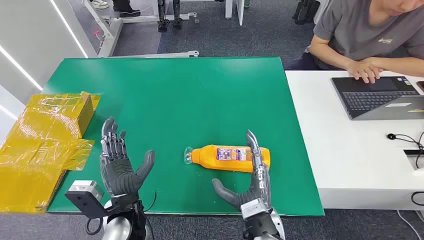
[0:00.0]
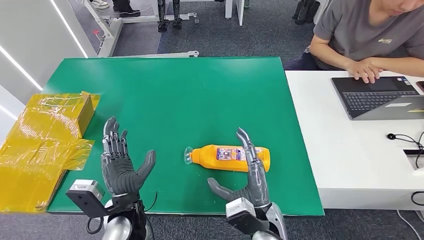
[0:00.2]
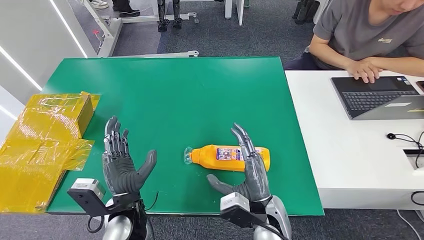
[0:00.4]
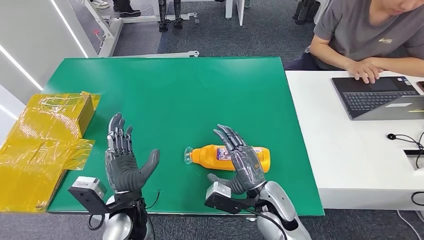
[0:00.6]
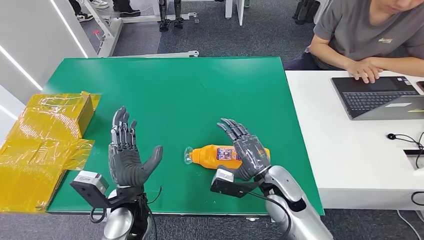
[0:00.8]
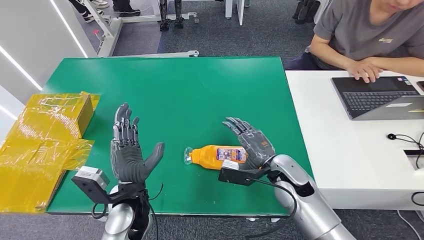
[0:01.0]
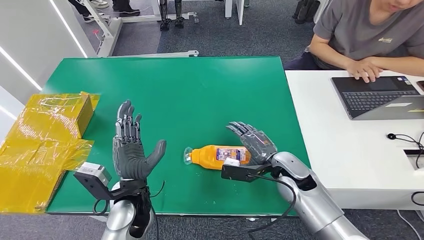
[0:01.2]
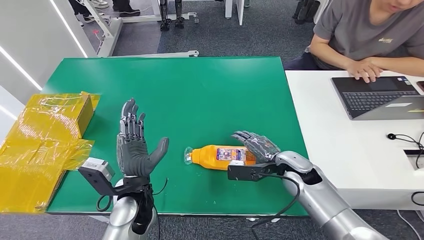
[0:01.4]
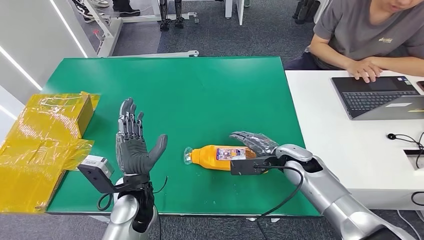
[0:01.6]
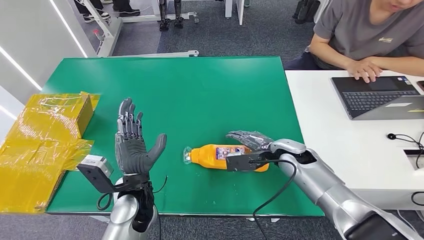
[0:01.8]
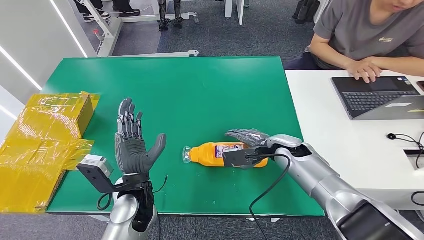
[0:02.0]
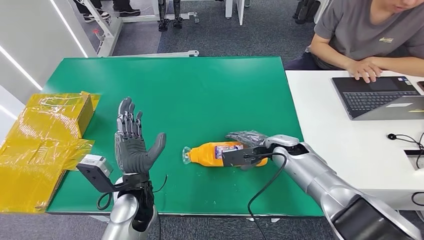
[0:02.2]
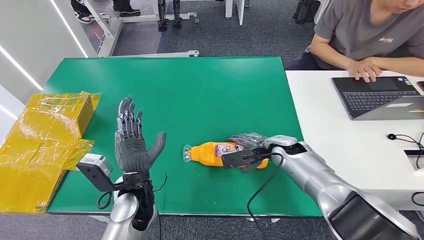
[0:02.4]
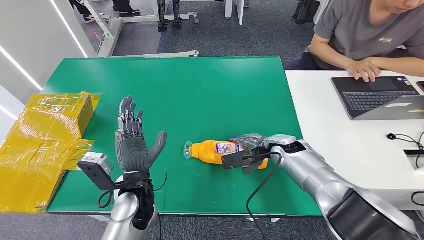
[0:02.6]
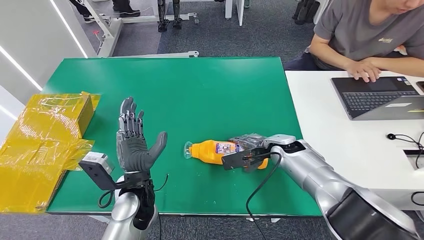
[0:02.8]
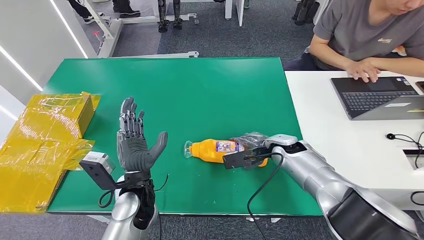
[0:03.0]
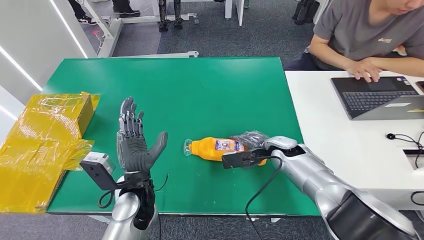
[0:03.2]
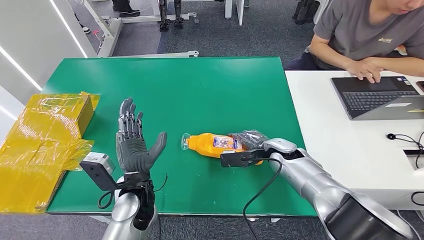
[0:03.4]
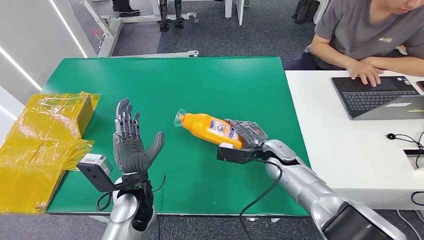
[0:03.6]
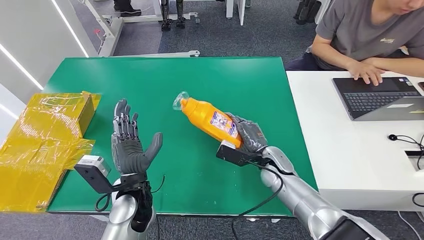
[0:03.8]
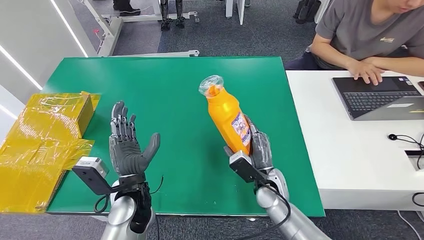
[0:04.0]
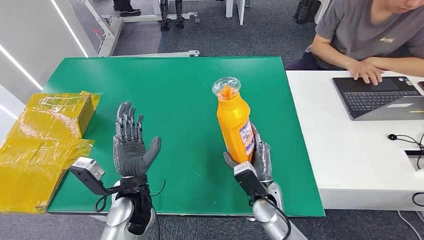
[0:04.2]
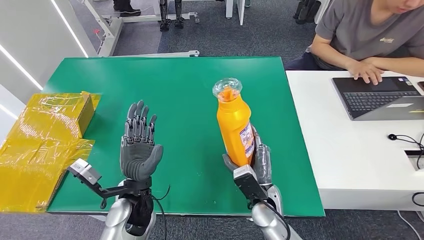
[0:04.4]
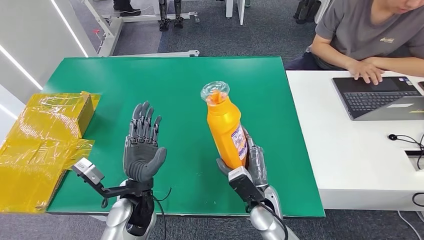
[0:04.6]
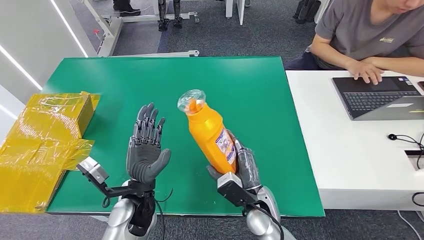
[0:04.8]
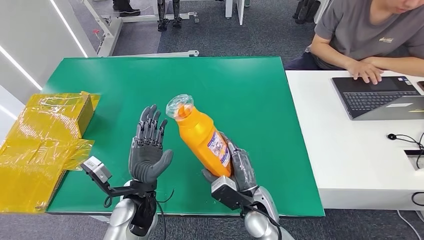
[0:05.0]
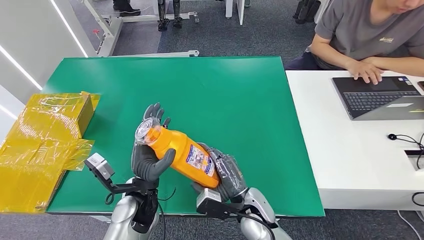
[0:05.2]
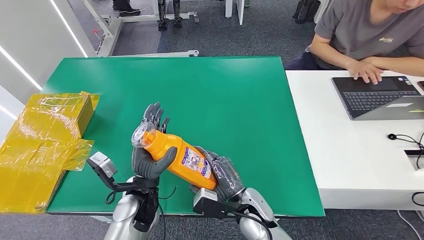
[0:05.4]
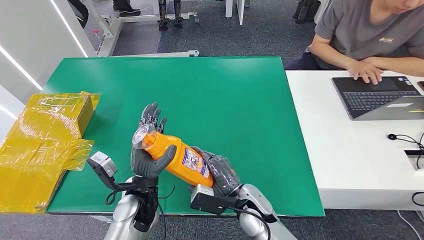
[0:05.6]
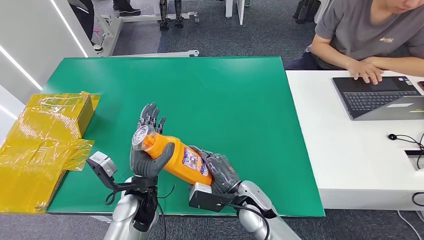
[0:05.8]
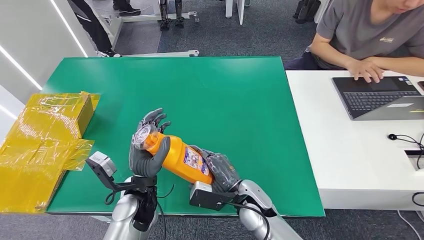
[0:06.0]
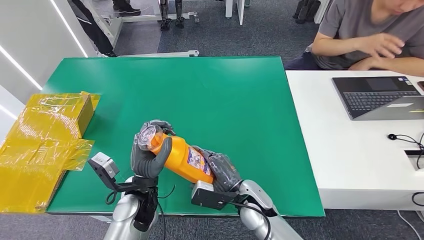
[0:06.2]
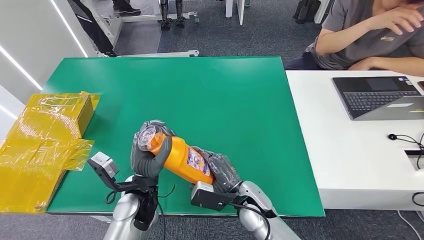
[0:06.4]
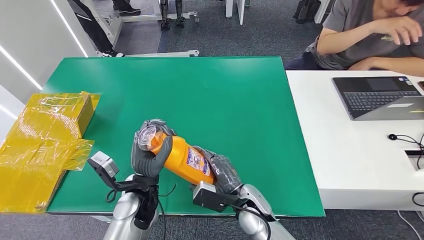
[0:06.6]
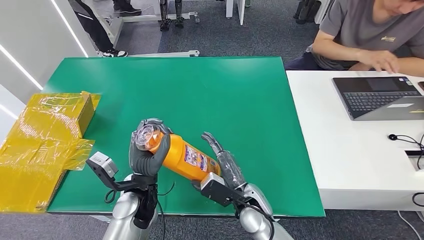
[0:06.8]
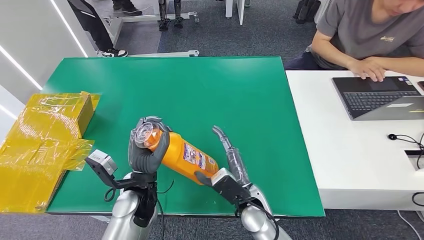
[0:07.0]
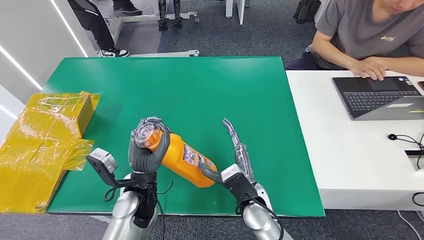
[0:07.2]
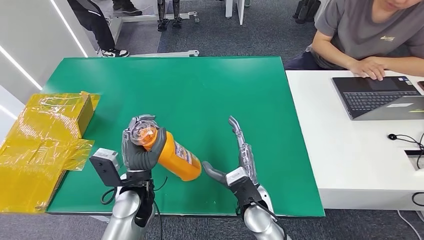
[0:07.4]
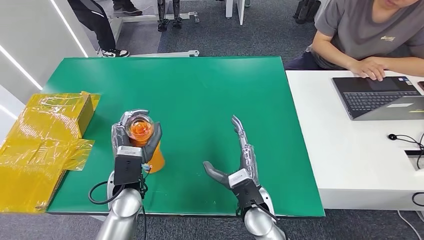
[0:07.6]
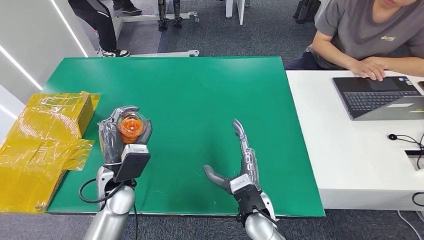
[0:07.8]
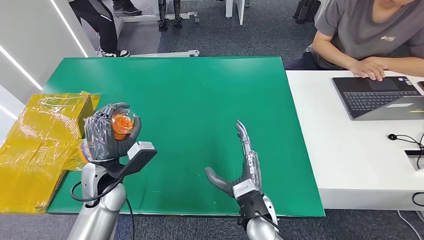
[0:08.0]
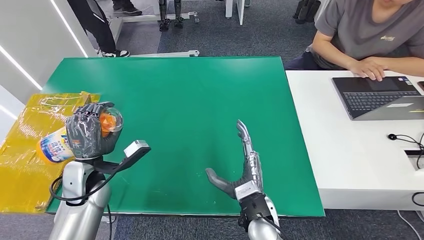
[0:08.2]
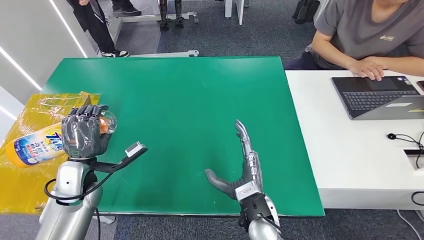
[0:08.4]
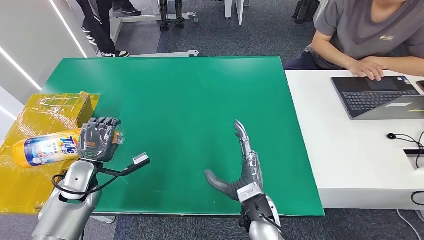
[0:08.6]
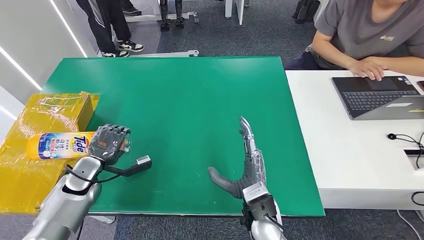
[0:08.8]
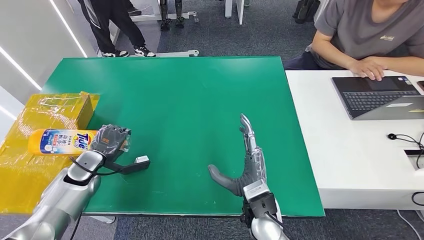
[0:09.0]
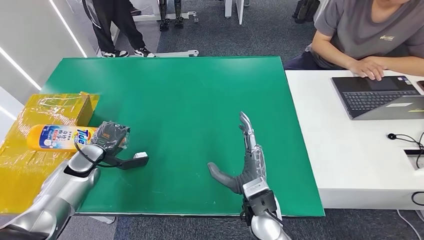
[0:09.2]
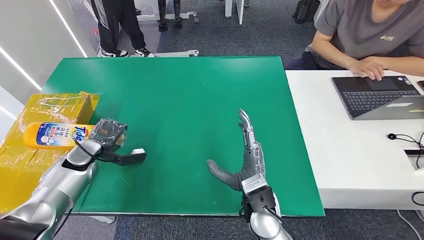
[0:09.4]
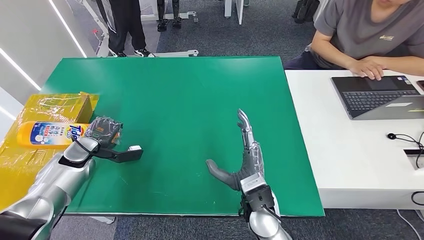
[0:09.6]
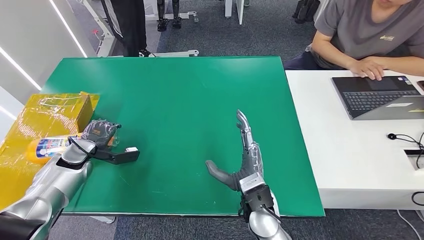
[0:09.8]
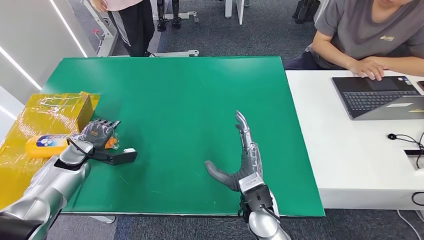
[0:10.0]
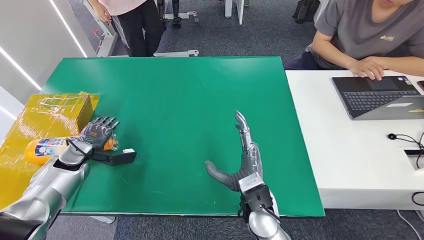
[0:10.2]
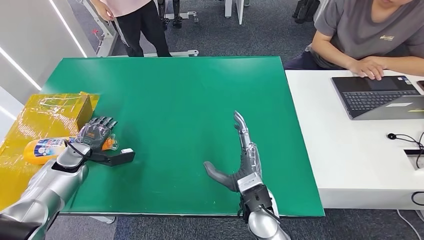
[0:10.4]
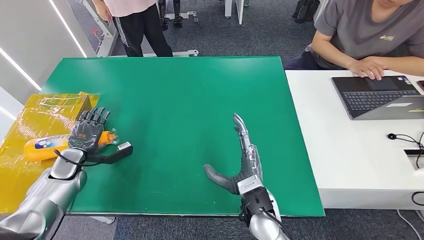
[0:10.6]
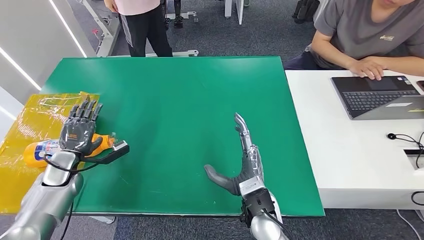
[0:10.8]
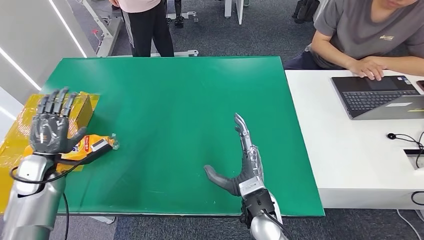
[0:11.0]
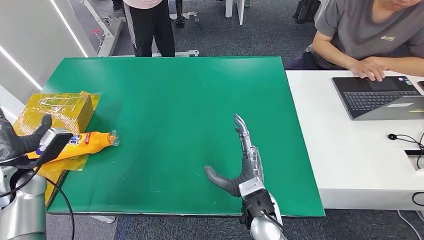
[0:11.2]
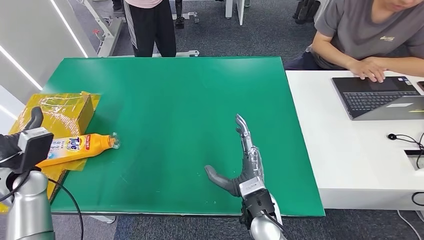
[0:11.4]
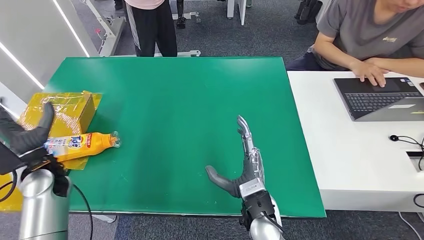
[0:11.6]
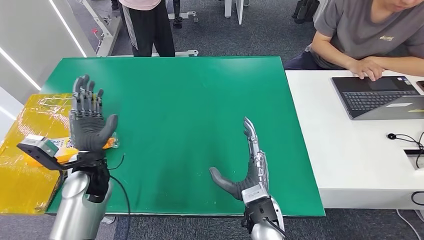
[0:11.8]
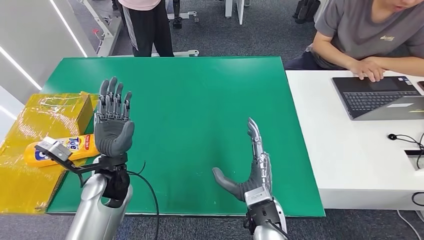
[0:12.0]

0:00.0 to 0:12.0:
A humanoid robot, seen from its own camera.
Step, 0:00.0 to 0:04.2: Pick up the bottle from the table.
Step, 0:04.6 to 0:12.0: Turn the bottle to the front side.
0:03.0 to 0:04.4: The right hand goes about 15 cm backward and to the left.
0:07.6 to 0:09.0: The left hand goes about 20 cm to the left and forward.
0:09.0 to 0:10.4: The left hand ends up roughly 5 cm from where it was.
0:10.4 to 0:12.0: The left hand goes approximately 20 cm to the right and backward.

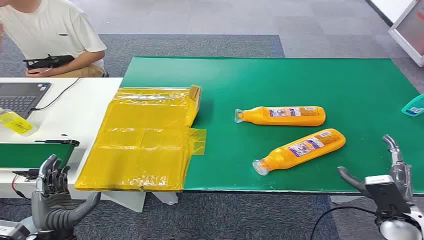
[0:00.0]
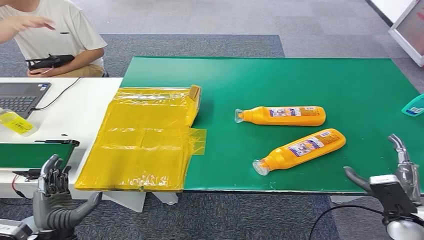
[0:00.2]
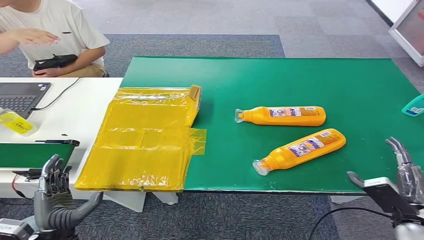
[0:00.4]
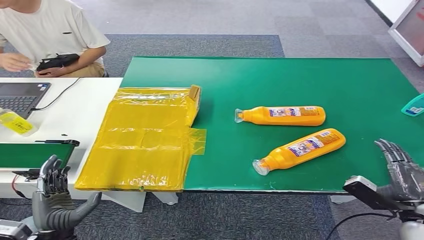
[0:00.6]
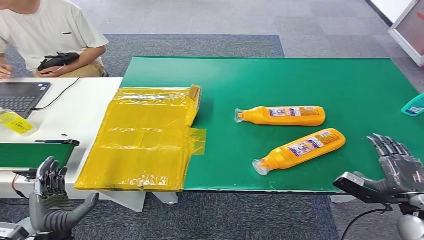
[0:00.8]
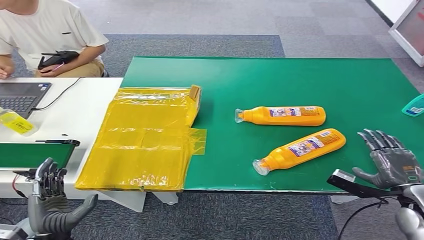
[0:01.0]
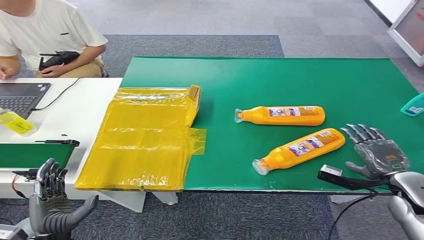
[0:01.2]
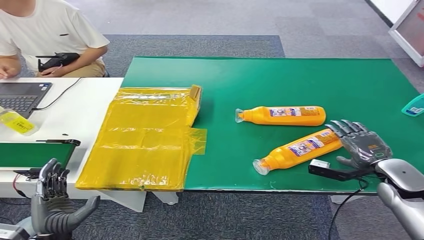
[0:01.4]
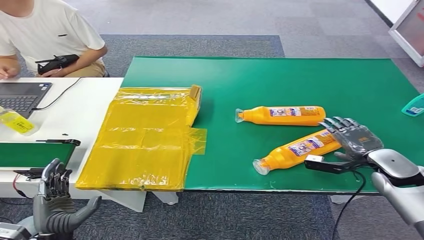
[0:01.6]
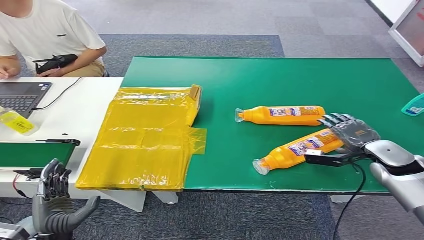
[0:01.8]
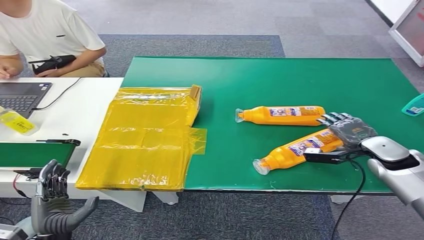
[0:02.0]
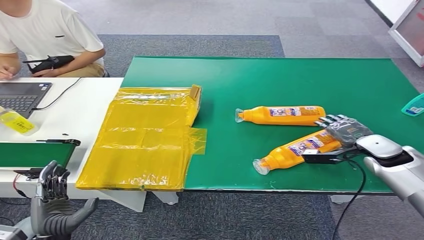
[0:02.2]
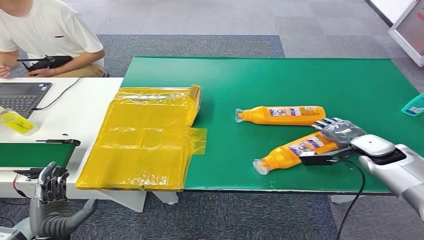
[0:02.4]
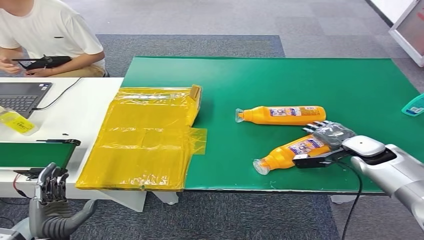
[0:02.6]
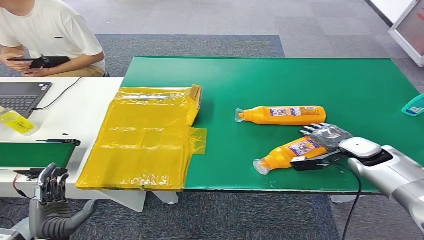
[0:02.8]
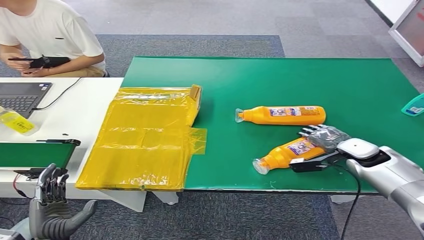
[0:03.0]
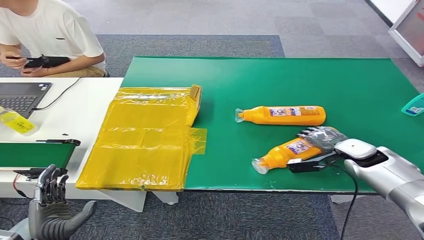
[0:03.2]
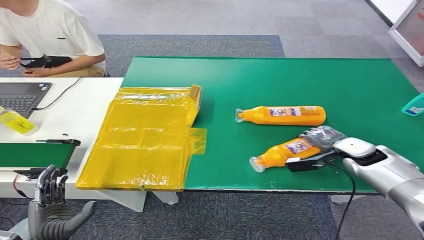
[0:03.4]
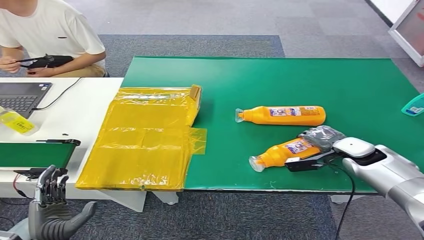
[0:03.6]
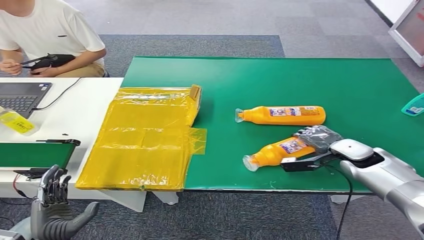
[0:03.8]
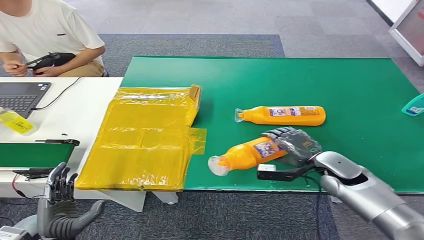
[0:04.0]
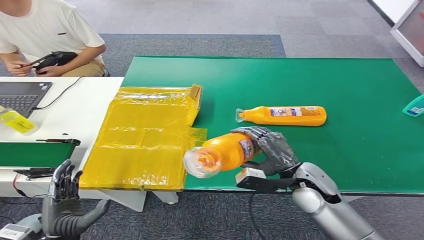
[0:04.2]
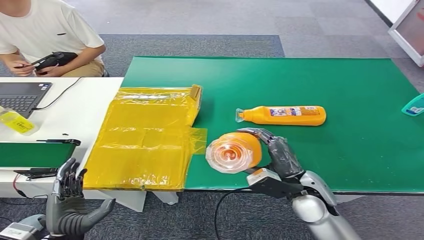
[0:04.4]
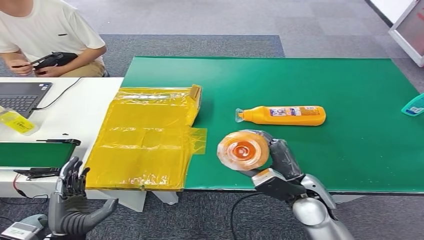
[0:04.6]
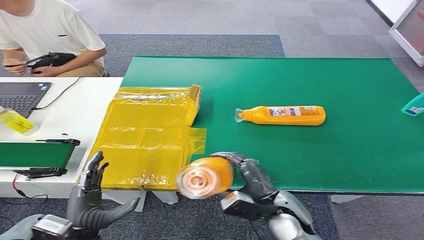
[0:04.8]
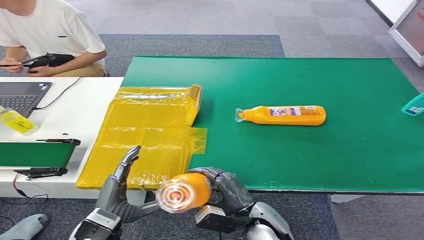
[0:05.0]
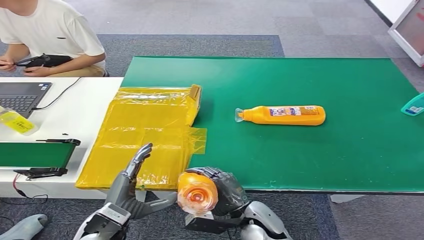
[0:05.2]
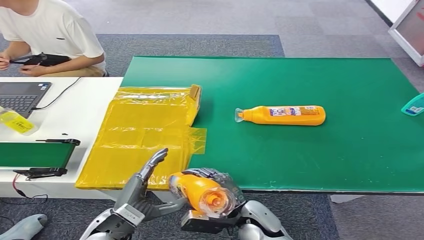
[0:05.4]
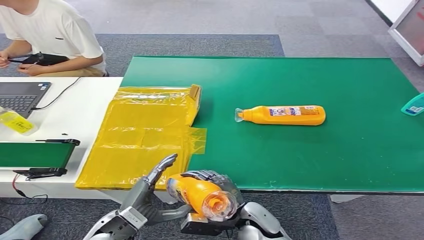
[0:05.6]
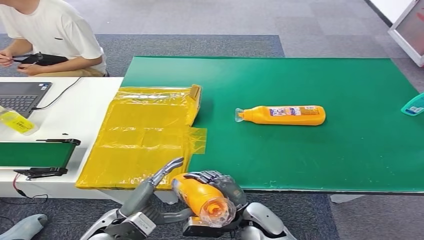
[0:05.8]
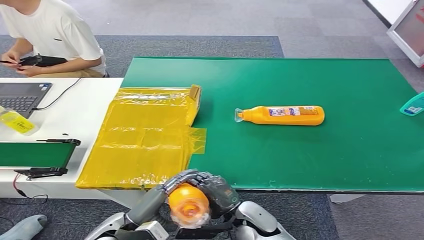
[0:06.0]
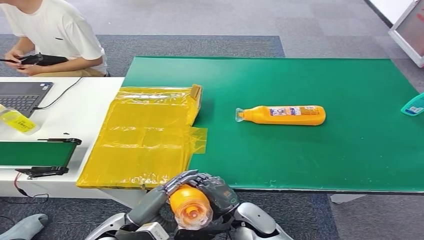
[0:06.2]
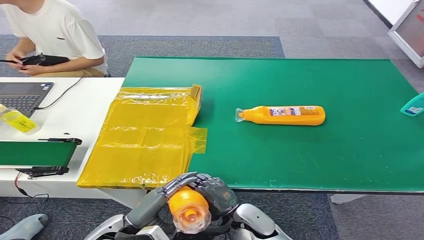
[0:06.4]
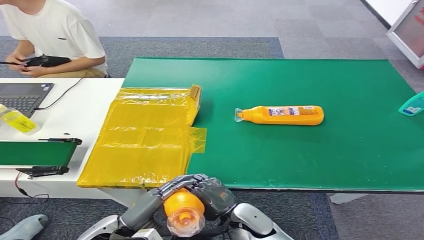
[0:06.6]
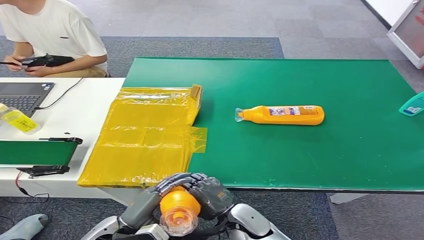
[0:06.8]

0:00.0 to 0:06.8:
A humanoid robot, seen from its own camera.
Step, 0:00.0 to 0:05.4: Pick up the bottle from the table.
0:01.4 to 0:02.8: The right hand travels forward by roughly 10 cm.
0:02.8 to 0:04.0: The right hand travels to the left by approximately 5 cm.
0:04.0 to 0:05.4: The left hand heads to the right and forward, covering some 10 cm. The right hand goes about 25 cm to the left and backward.
